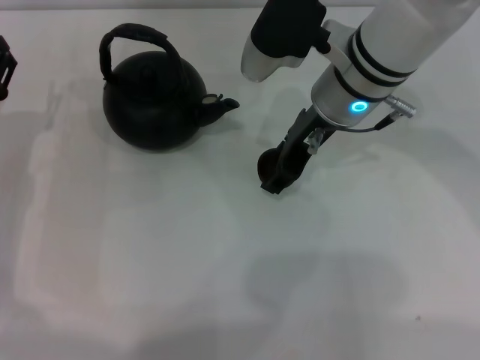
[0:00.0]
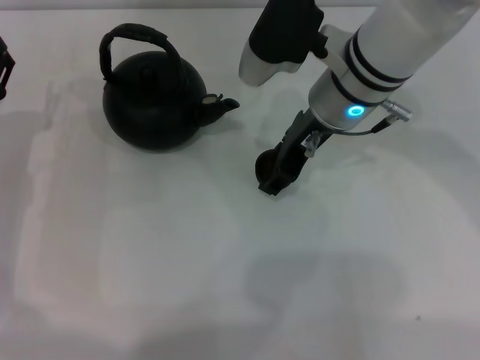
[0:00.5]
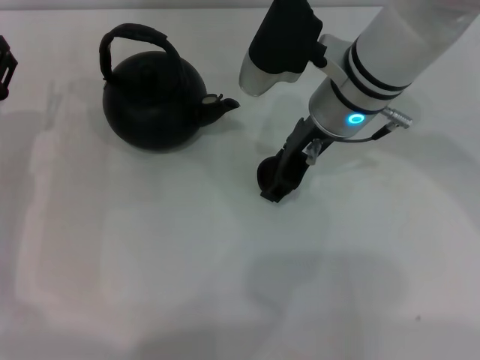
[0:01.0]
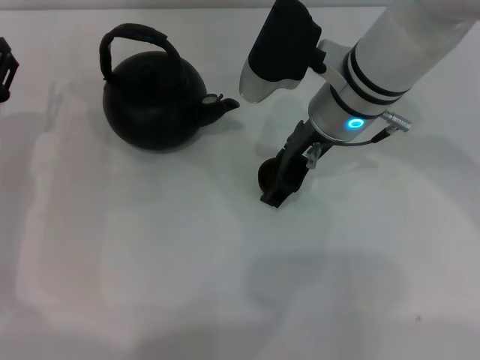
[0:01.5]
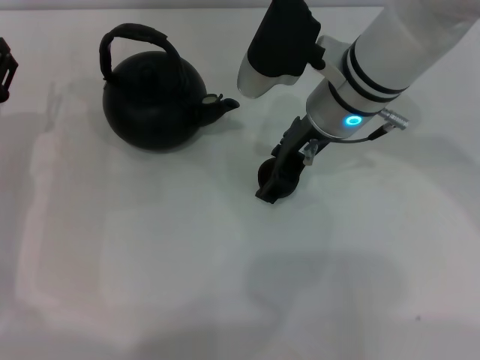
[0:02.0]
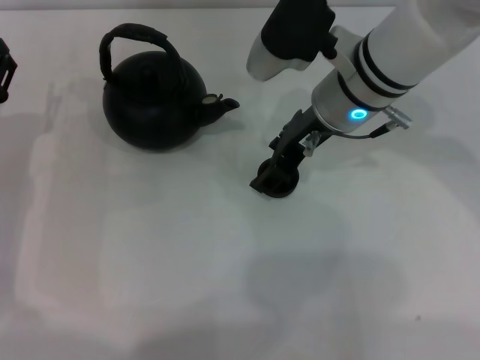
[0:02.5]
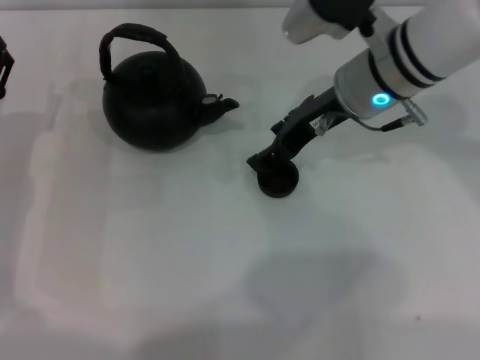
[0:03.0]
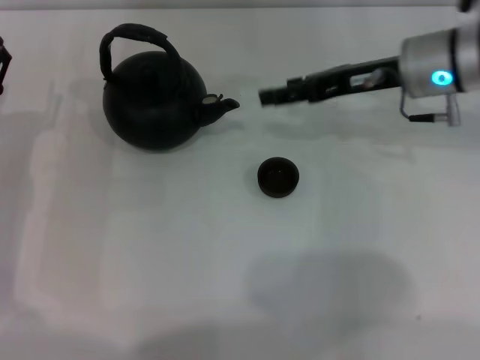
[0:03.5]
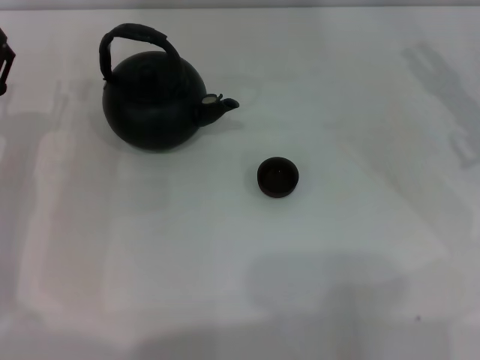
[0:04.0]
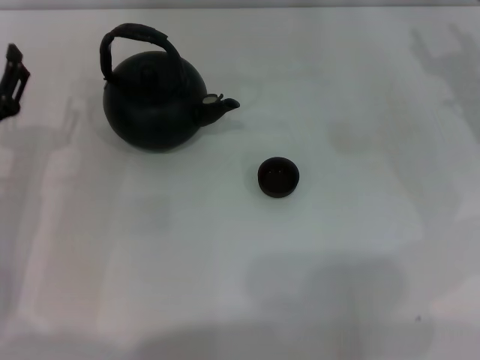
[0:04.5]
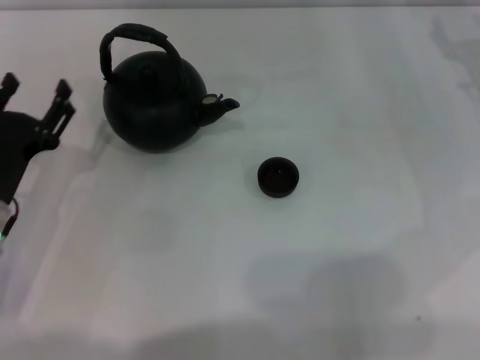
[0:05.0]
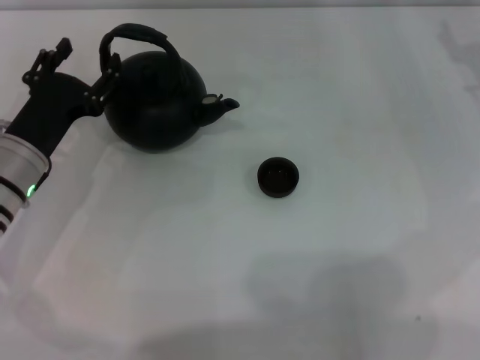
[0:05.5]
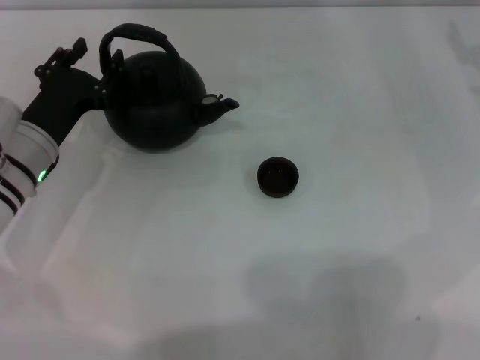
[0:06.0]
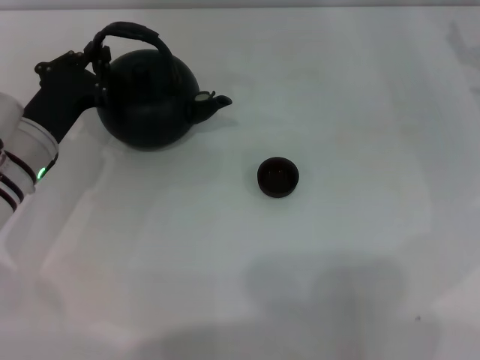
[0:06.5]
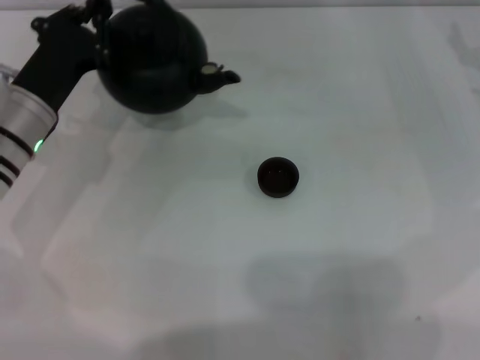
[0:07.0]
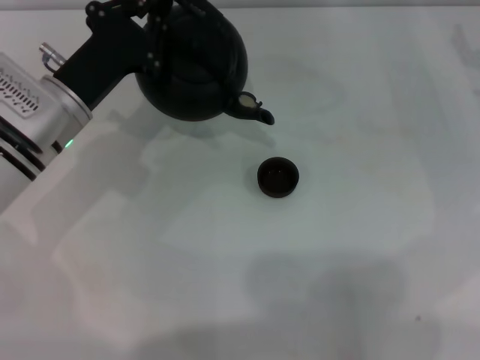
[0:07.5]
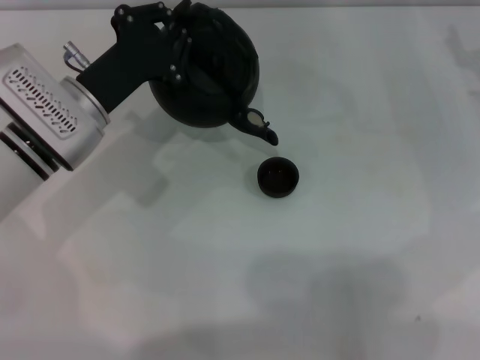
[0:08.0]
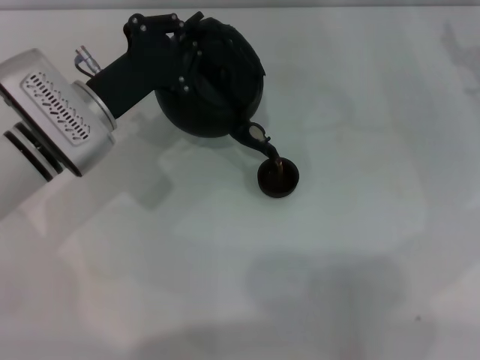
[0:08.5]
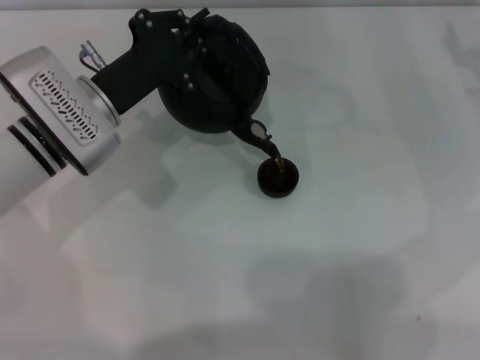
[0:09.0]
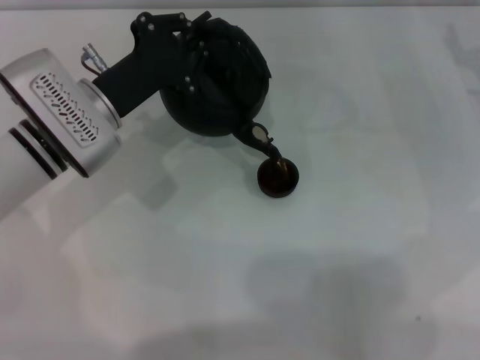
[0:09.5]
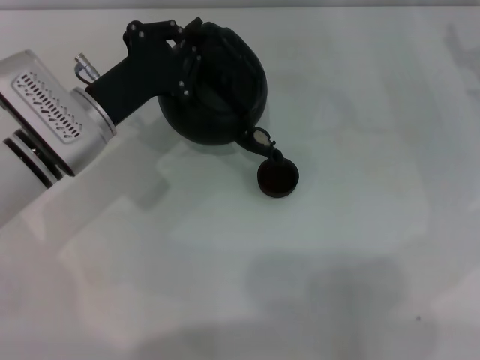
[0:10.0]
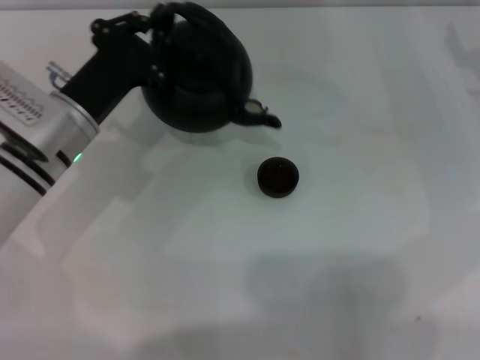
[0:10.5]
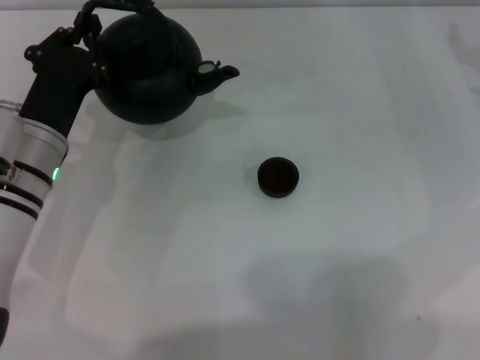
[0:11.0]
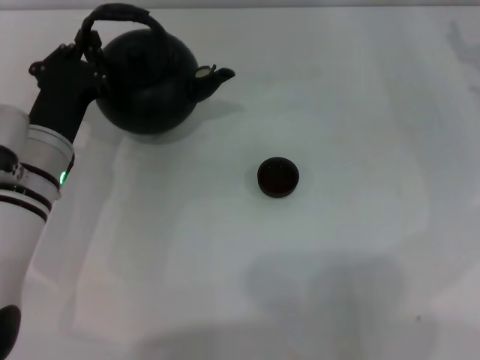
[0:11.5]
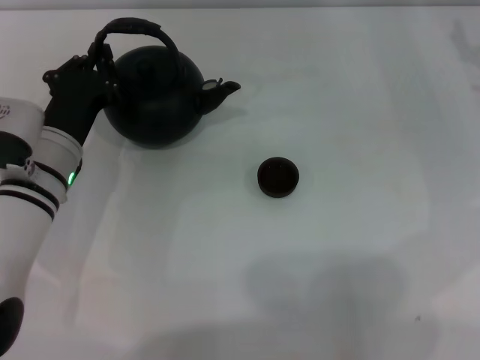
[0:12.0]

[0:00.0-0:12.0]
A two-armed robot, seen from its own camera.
Task of the whole recording: Grasp the handle of the teapot with one hand and pour tea into the teacup.
Step, 0:00.0 to 0:03.0: Place the teacup in the center of view with the right gripper.
Step, 0:03.5 to 0:06.5: Pick up the teapot with the left gripper.
Step, 0:07.0 to 0:10.5: Pour tea into the teacup with the left gripper.
0:00.0 to 0:02.0: The right gripper opens its fingers.
0:02.0 to 0:04.0: The right gripper goes roughly 20 cm to the right.
0:04.0 to 0:06.0: The left gripper goes approximately 5 cm to the right.
0:06.0 to 0:08.0: The left gripper moves about 5 cm, and closes.
0:08.0 to 0:10.0: The grippers stay close to where they were, moving slightly.

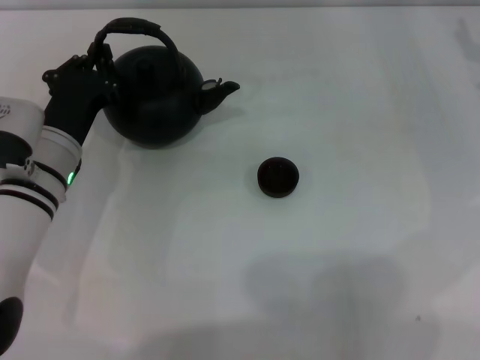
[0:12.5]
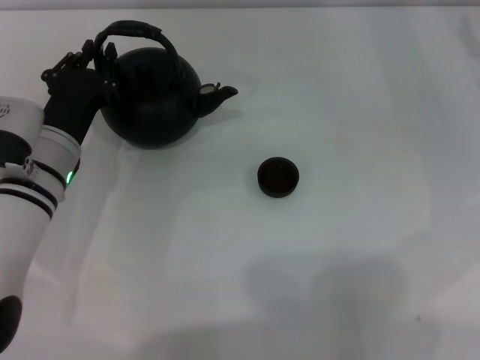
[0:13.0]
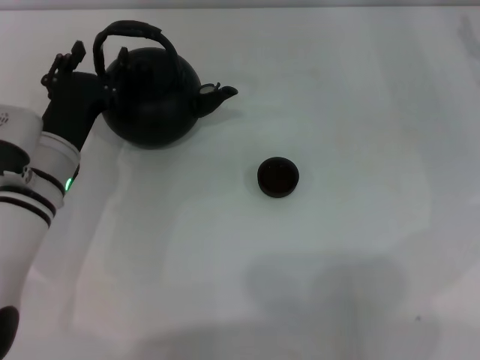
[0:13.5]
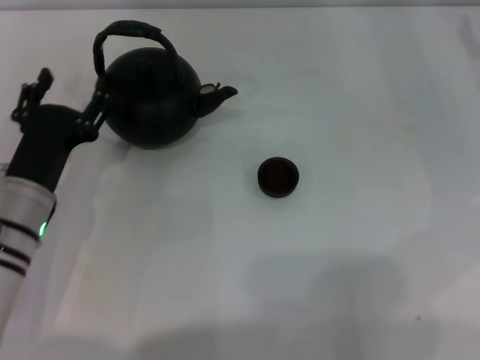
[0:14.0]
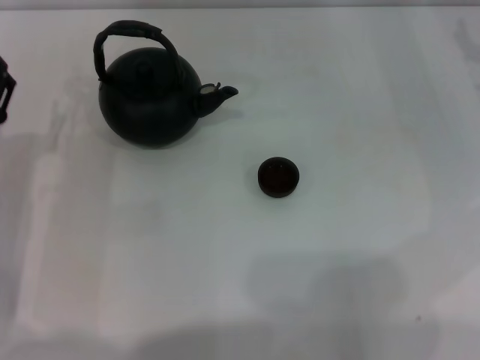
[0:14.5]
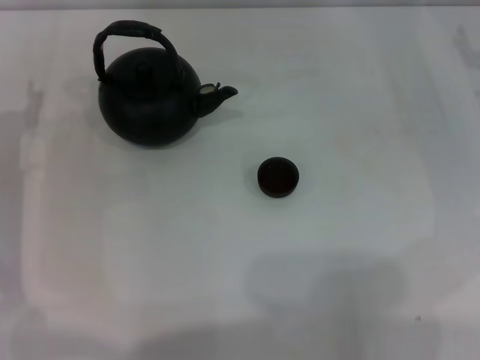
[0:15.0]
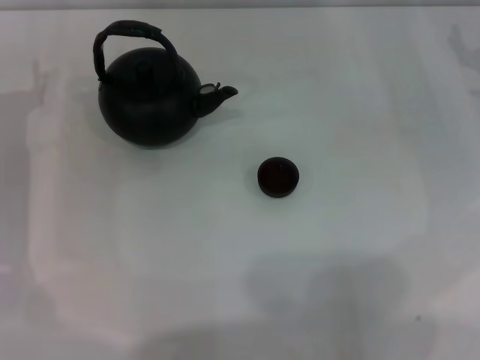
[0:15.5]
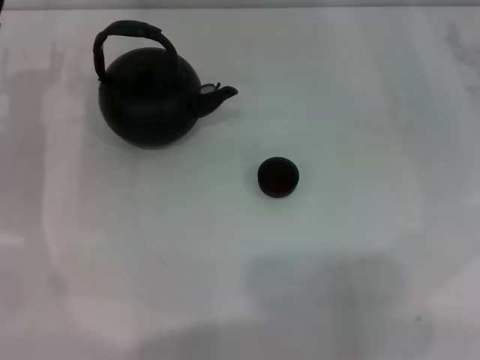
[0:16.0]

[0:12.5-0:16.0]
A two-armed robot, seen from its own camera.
Task of the whole recording: Grasp the handle of the teapot with one hand and pour tea into the teacup.
0:12.5 to 0:14.5: The left gripper is displaced to the left and backward by roughly 10 cm, and opens its fingers.

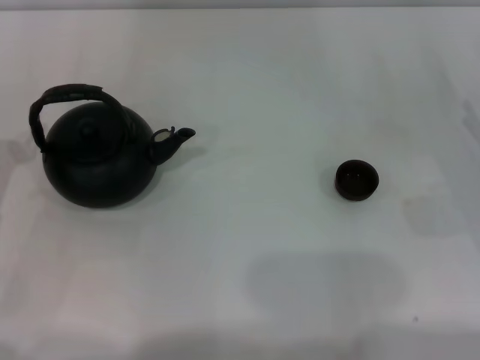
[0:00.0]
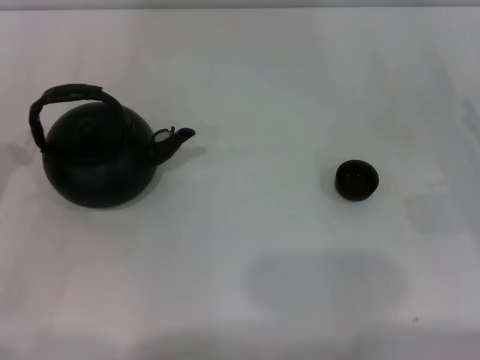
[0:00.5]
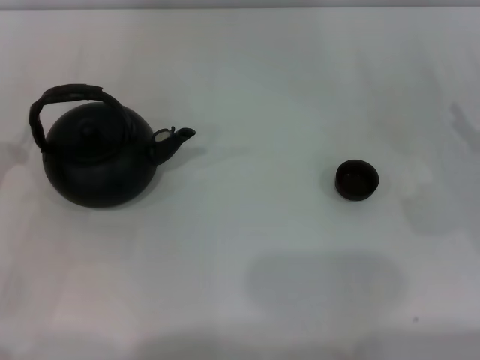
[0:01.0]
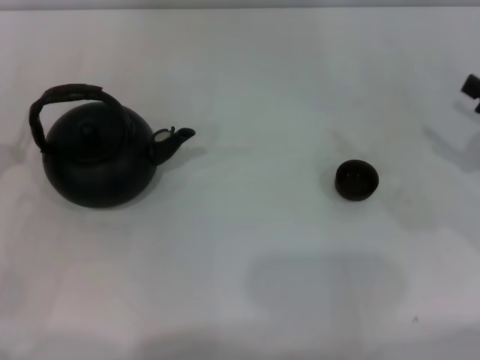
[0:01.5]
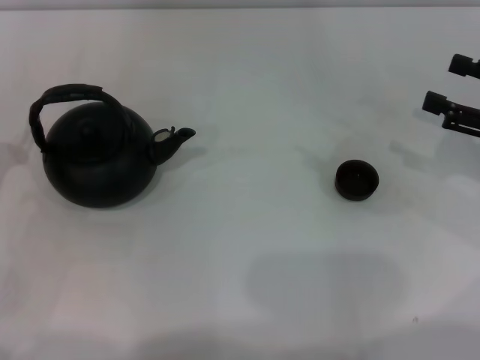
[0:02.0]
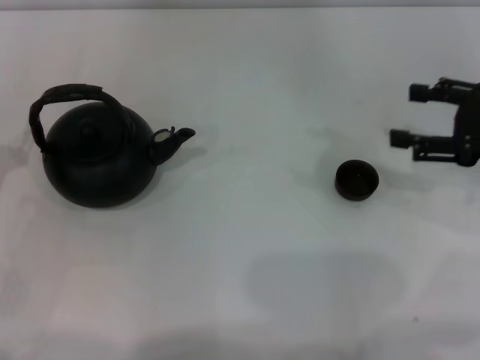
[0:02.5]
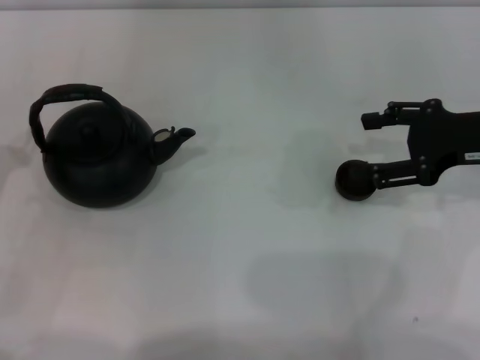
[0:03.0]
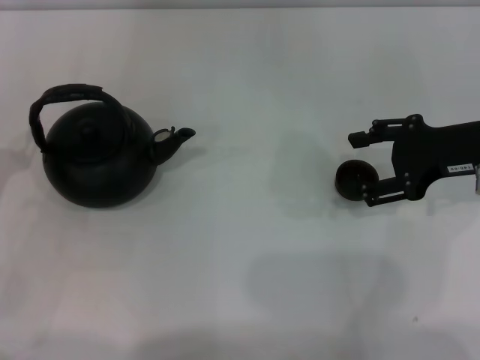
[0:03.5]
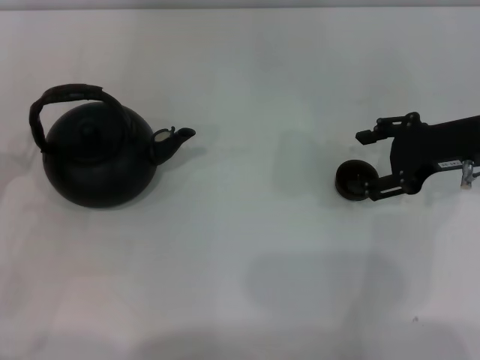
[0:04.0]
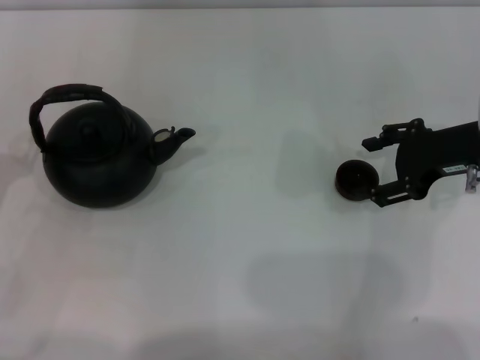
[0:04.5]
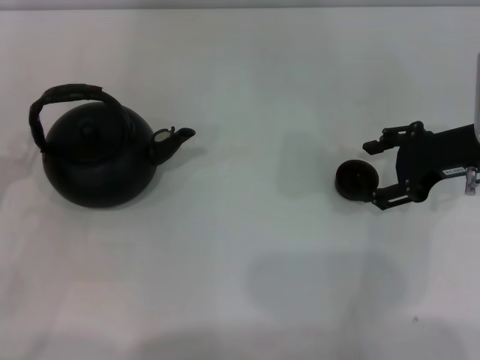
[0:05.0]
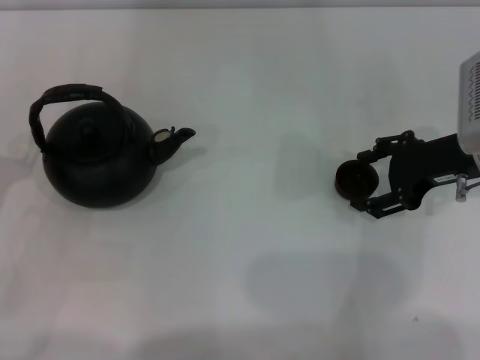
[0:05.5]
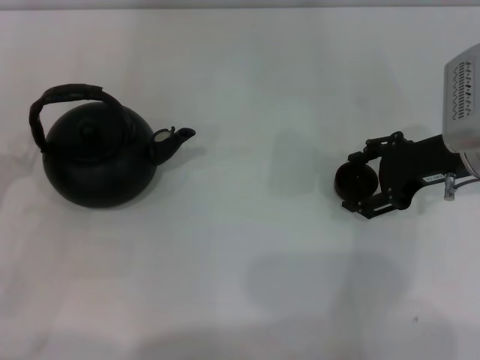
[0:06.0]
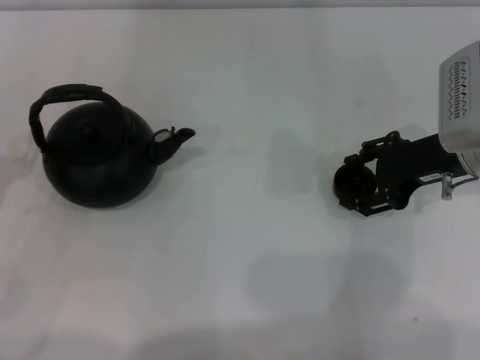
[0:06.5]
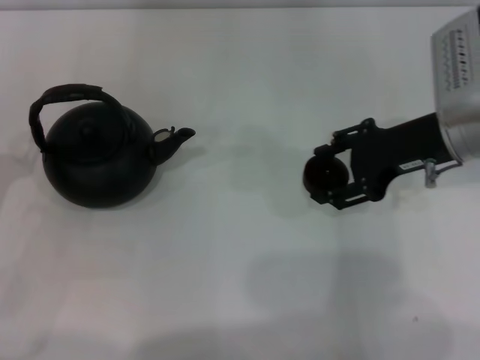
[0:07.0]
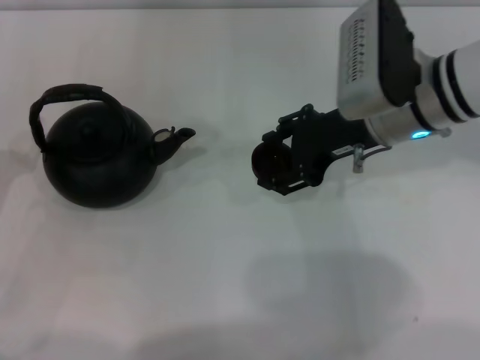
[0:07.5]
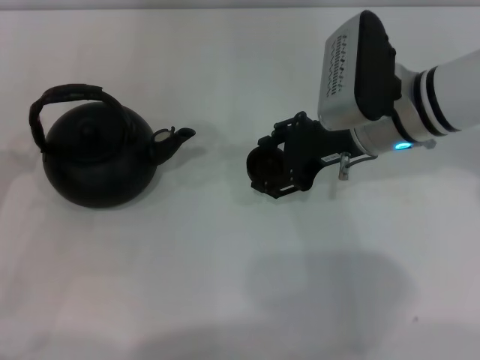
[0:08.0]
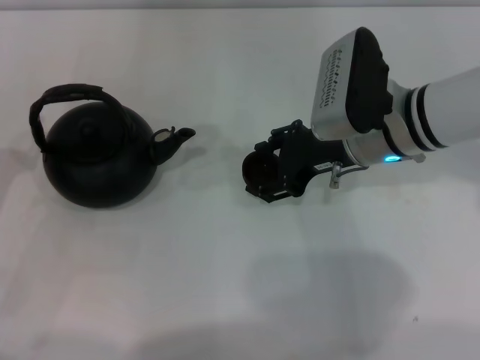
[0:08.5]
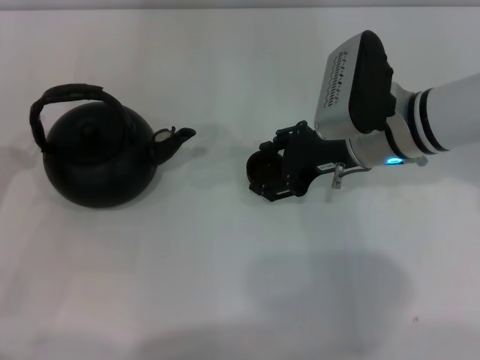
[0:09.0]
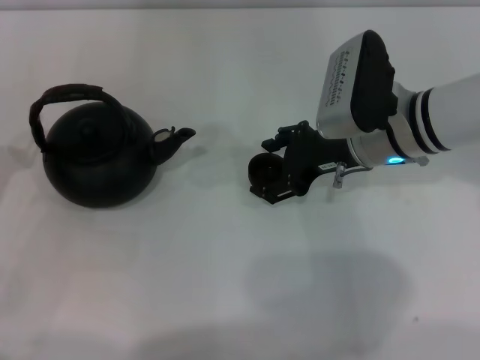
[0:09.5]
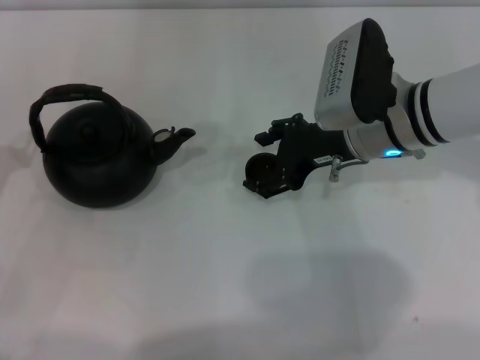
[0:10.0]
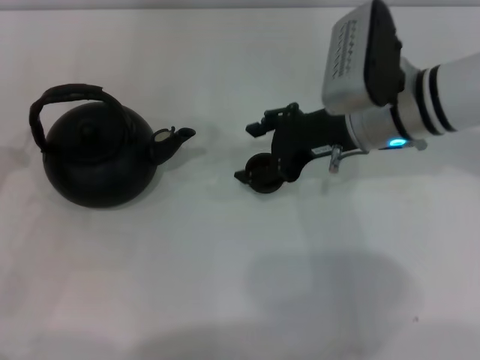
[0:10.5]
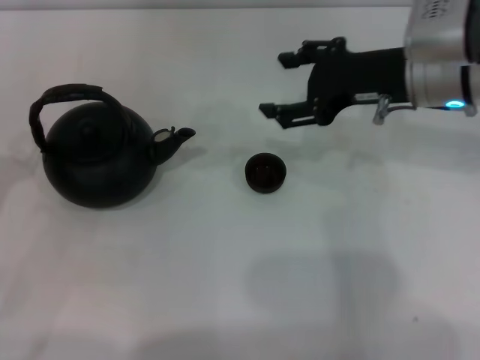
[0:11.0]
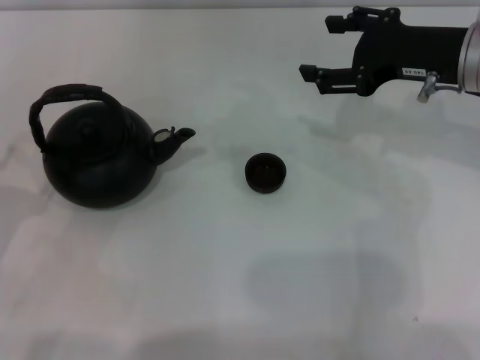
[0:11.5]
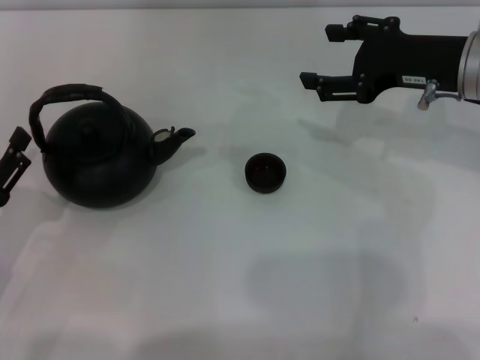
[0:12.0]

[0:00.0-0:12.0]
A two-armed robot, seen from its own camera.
Task of the whole recording: Grasp the handle of the teapot with one hand and pour tea into the teacup.
Step, 0:00.0 to 0:07.0: Pick up the teacup with the right gripper.
Step, 0:07.5 to 0:10.5: Place the teacup in the center of view with the right gripper.
0:00.0 to 0:02.0: The right gripper is displaced upward by roughly 5 cm.
0:02.0 to 0:04.0: The right gripper travels to the left and forward by some 10 cm.
0:04.0 to 0:06.0: There are only small adjustments of the grippers.
0:06.0 to 0:08.0: The right gripper goes about 10 cm to the left.
0:08.0 to 0:10.0: There are only small adjustments of the grippers.
0:10.0 to 0:12.0: The right gripper moves to the right and upward, roughly 10 cm. The left gripper changes place by roughly 5 cm.
